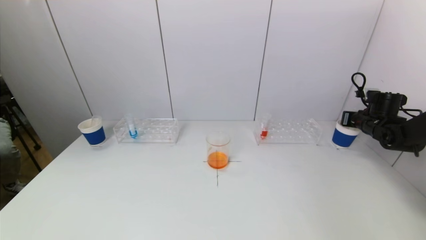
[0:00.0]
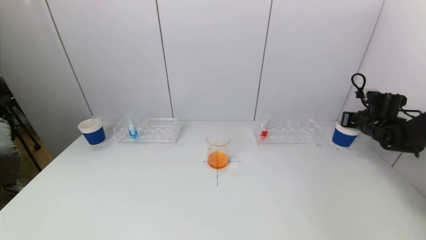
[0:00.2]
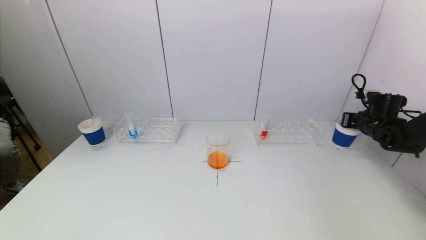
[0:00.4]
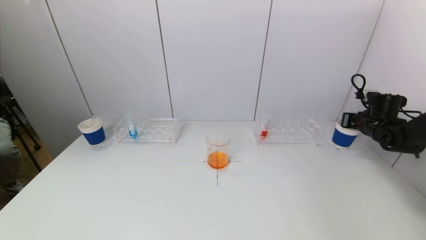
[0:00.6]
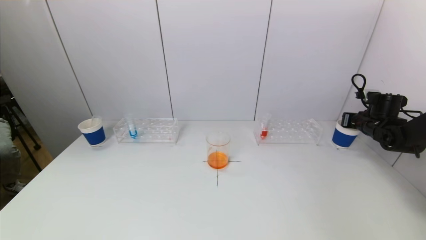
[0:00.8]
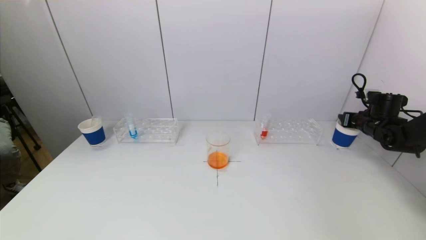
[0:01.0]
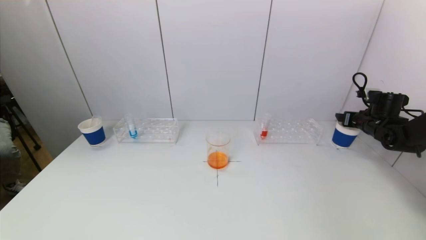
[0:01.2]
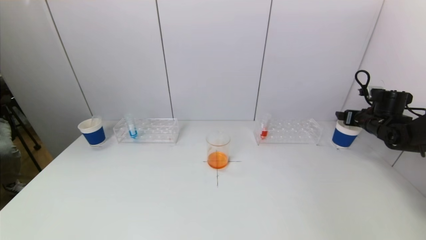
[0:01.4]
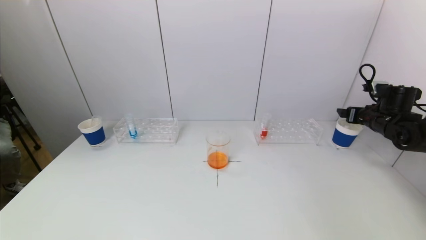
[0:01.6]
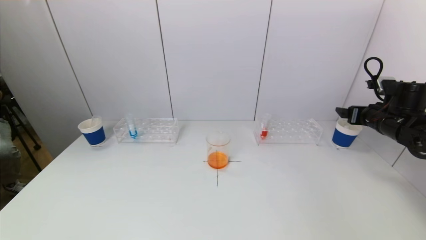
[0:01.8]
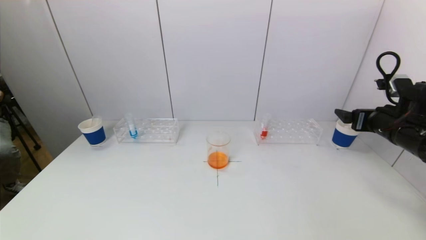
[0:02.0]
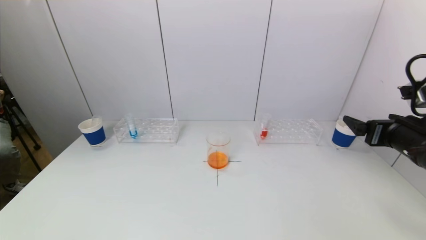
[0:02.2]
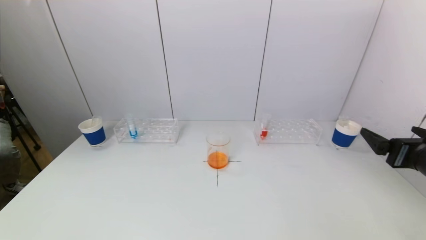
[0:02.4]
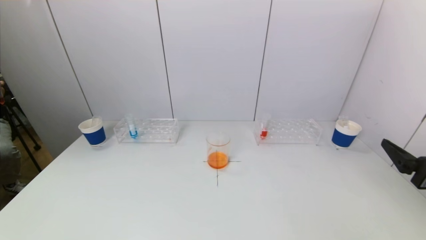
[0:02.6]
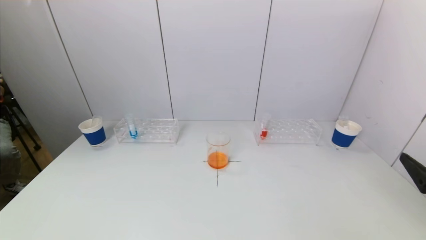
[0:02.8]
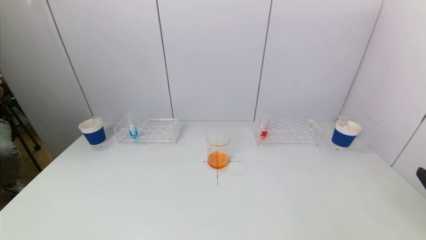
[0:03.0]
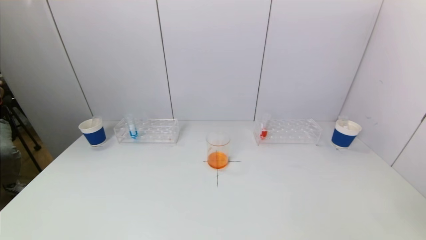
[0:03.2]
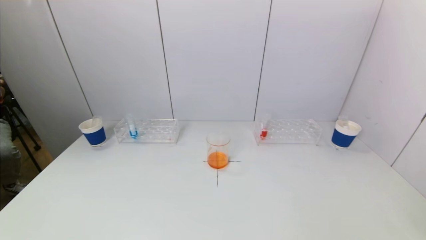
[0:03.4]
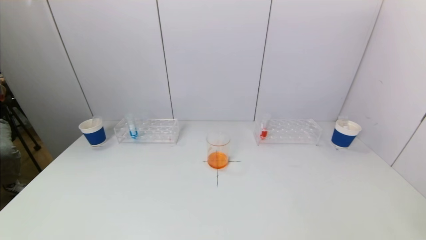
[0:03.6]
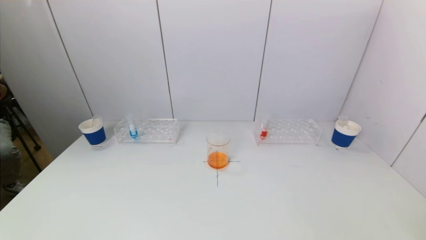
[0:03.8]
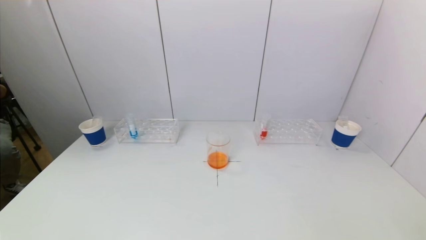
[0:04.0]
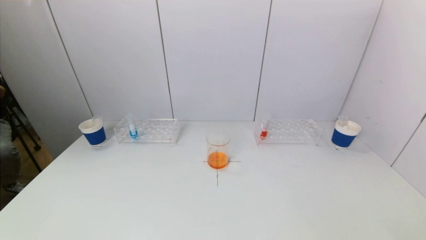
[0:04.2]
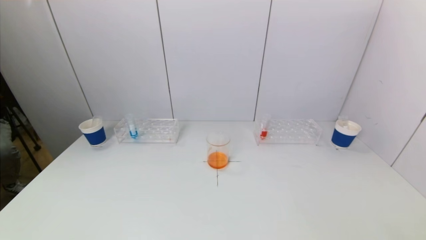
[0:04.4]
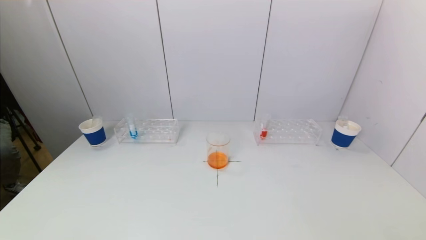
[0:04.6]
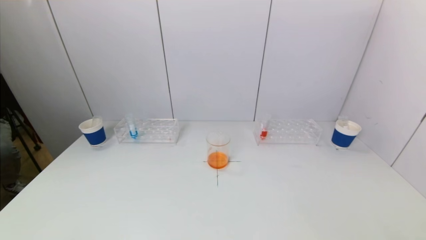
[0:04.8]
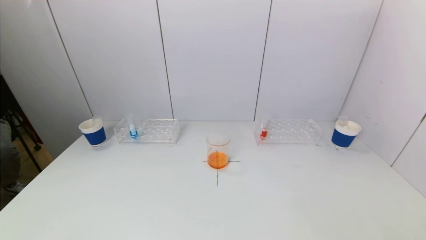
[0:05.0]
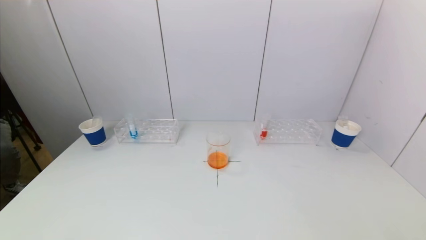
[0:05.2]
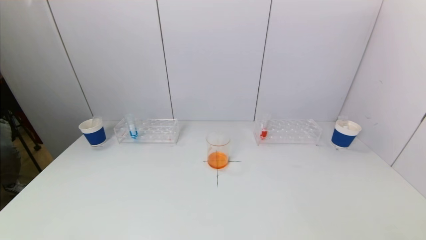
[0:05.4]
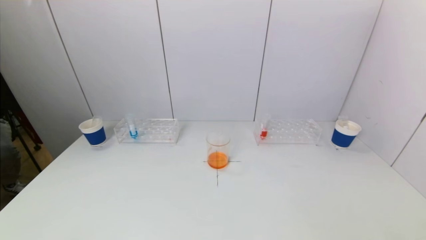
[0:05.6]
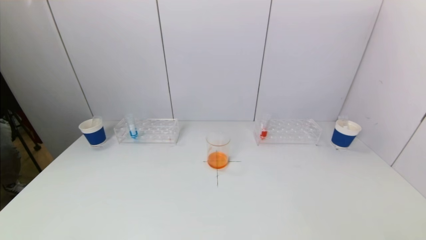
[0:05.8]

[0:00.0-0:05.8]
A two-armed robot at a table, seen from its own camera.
Task of the whole recording: pick up a test tube with pigment on left test tube rack and a test tube with pigment on right test tube rack by grippers and pour them into the beaker.
0:00.0 to 0:01.4: The right gripper opens its fingers.
0:01.4 to 0:02.8: The right gripper goes some 35 cm backward.
0:02.8 to 0:04.4: The right gripper travels backward and downward by about 15 cm.
0:04.4 to 0:05.8: Both grippers stay put.
